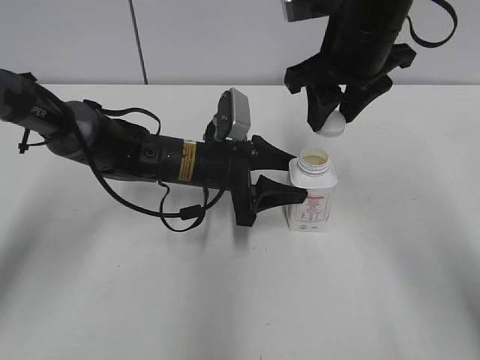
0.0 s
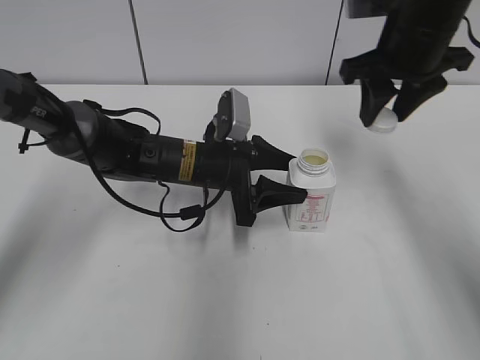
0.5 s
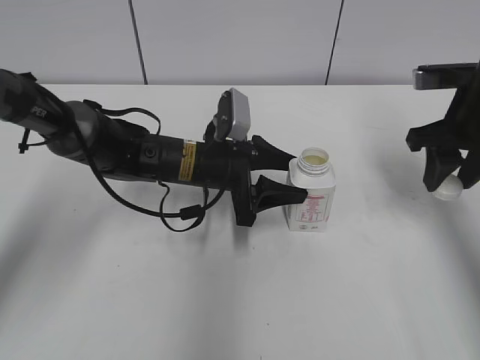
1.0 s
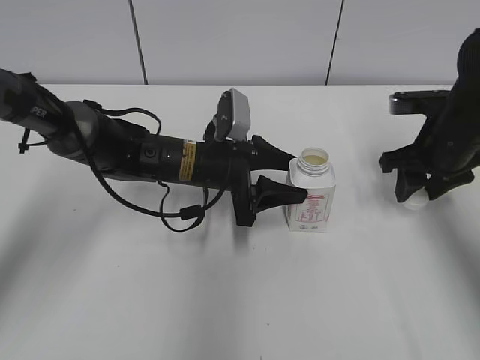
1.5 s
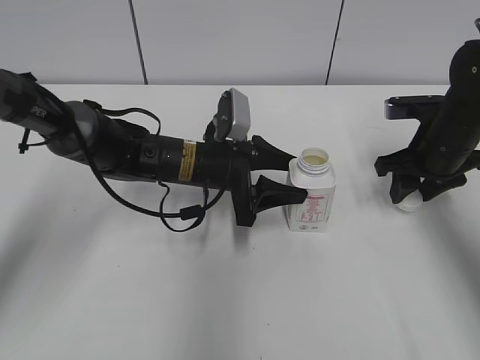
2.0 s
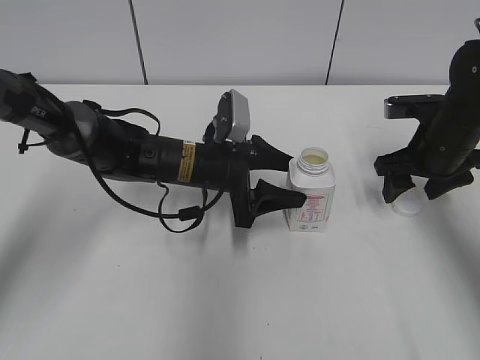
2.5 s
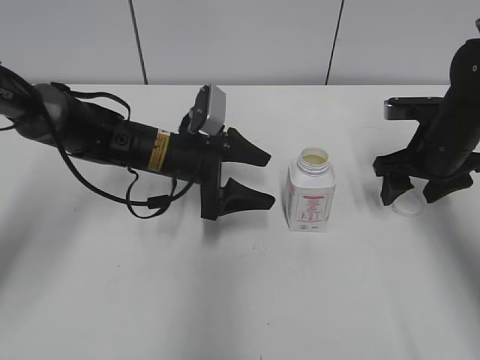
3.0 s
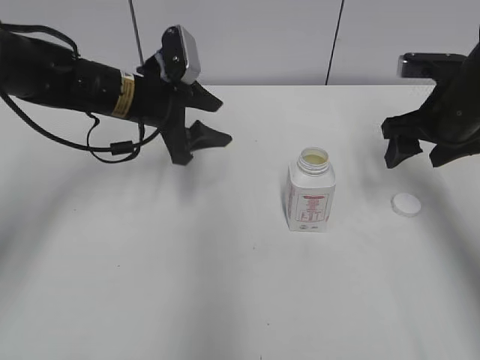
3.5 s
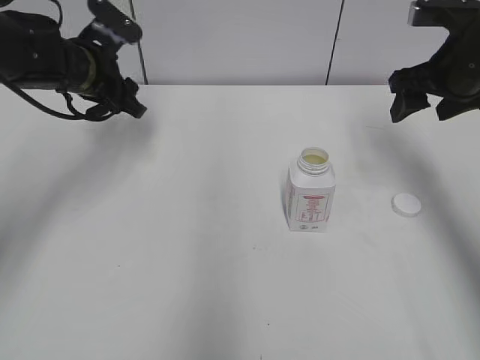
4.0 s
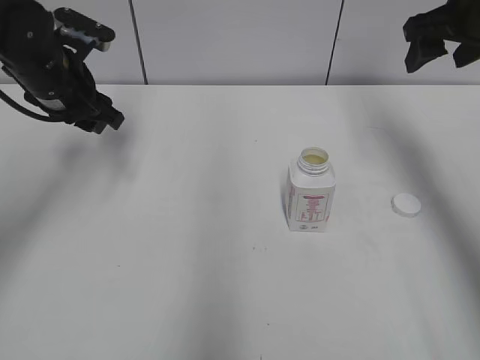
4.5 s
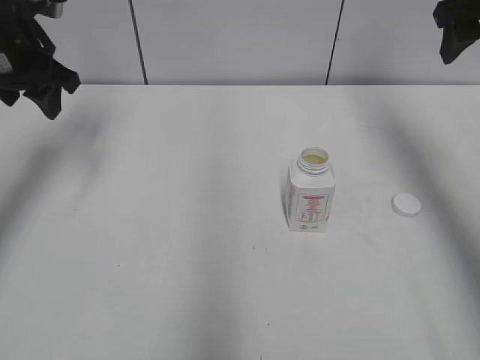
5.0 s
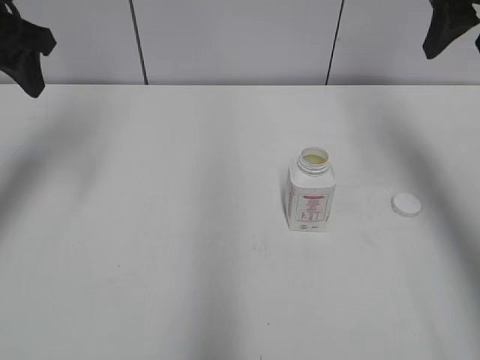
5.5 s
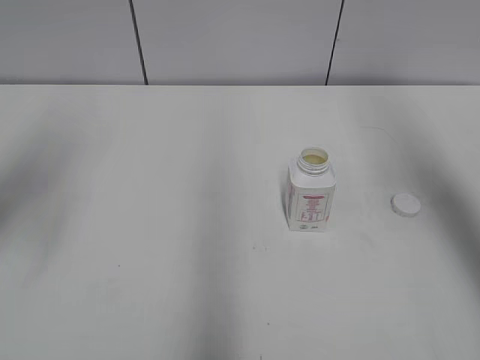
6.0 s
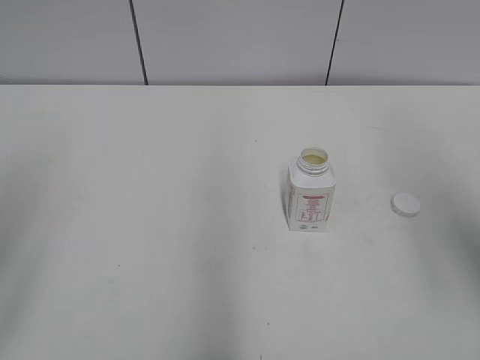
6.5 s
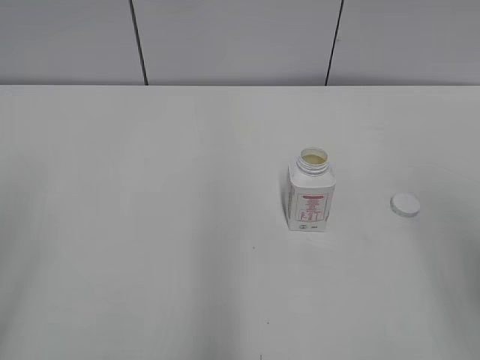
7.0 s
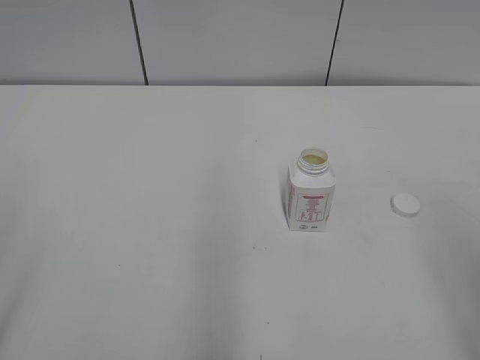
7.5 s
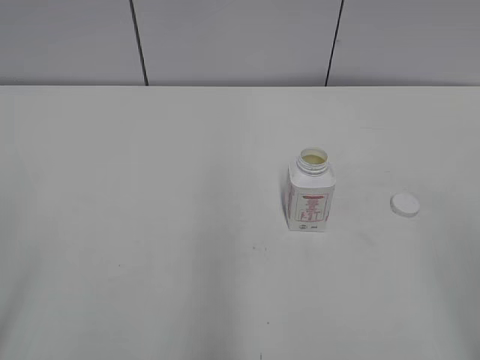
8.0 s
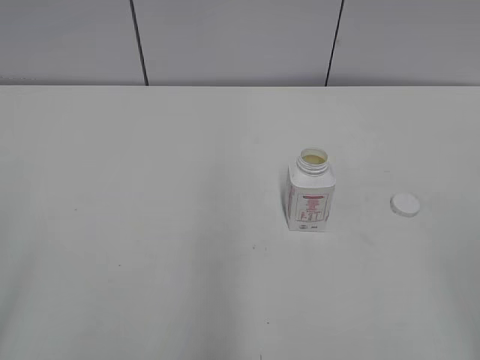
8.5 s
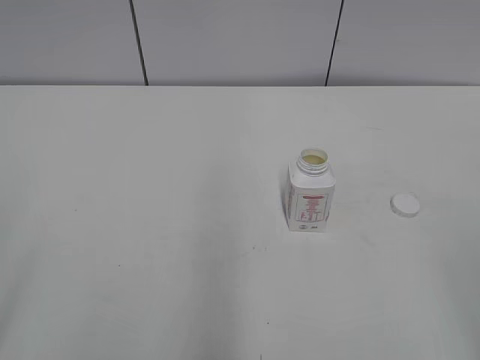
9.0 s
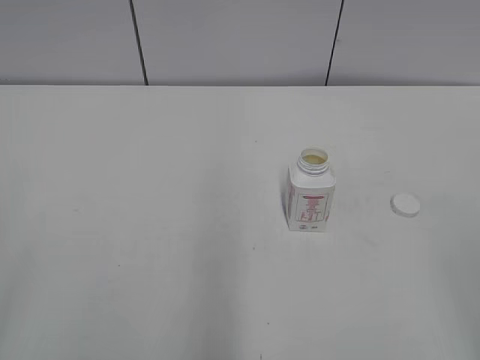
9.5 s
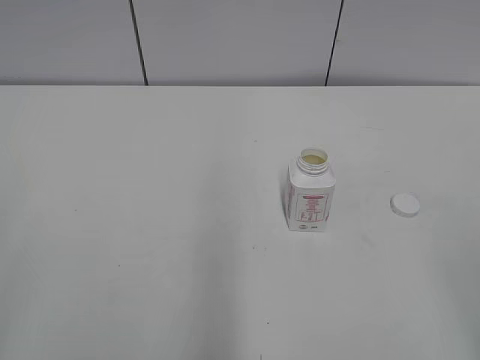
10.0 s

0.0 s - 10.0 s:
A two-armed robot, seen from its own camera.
Step, 0.0 s - 2.0 s: Place the bottle cap on the right.
0.0 s - 2.0 s: The right gripper is displaced to the right and downward by roughly 20 cm.
2.0 s - 4.0 s: The right gripper heads upward, covering roughly 10 cm, and opens its fingers, while the left gripper shifts approximately 20 cm to the left, upward and forward, and opens and closes again.
4.0 s - 6.0 s: The left gripper travels backward, upward and to the left by about 25 cm. The right gripper travels upward and backward by some 15 cm.
6.0 s - 8.0 s: The grippers both shift backward by about 25 cm.

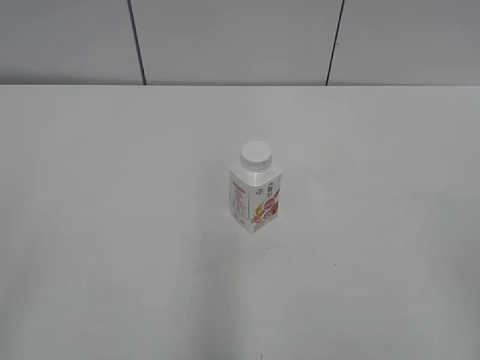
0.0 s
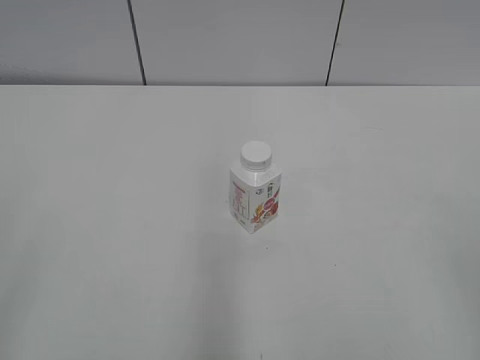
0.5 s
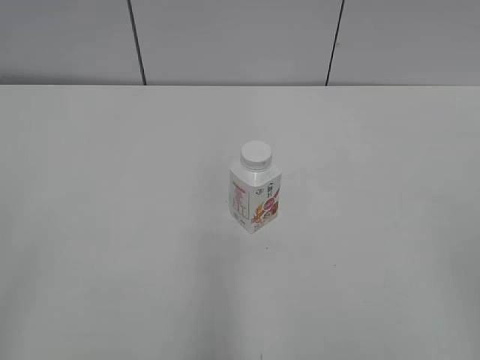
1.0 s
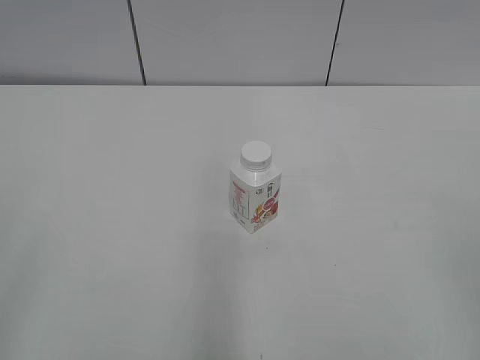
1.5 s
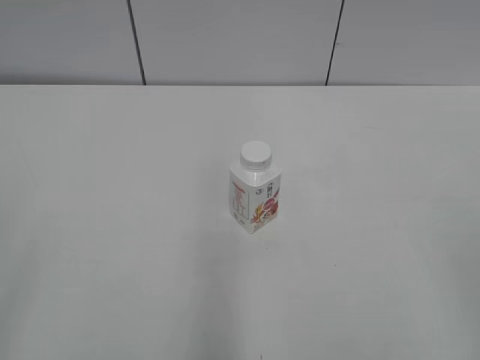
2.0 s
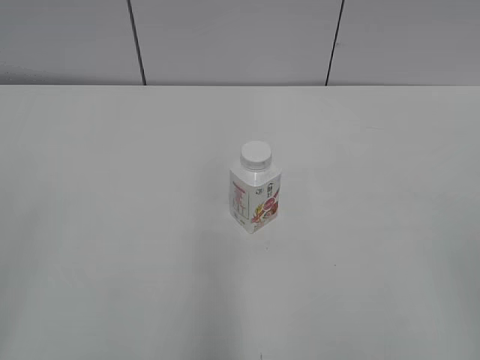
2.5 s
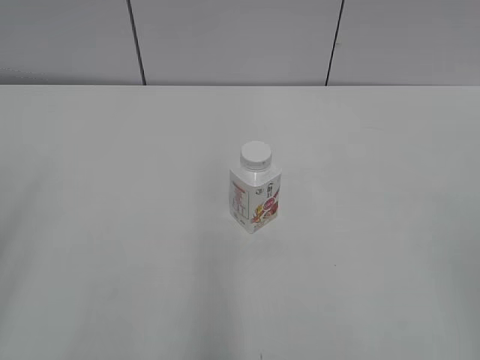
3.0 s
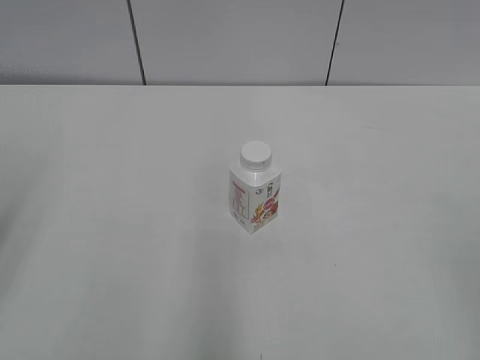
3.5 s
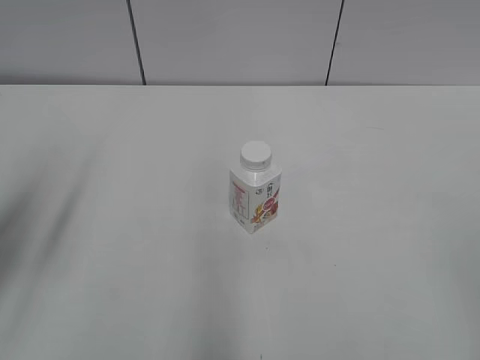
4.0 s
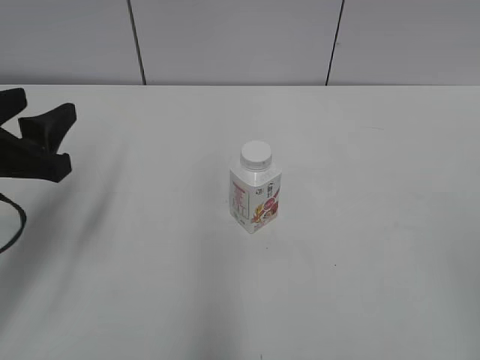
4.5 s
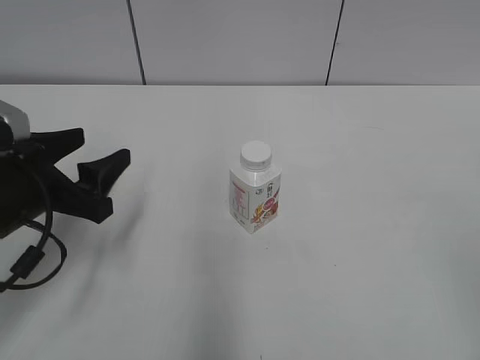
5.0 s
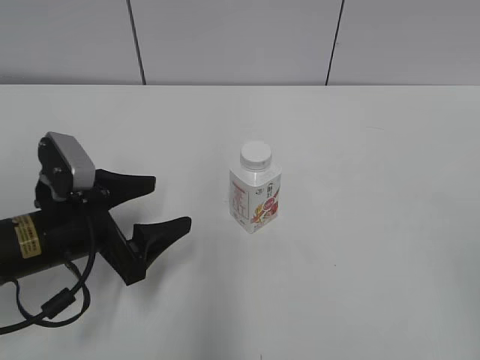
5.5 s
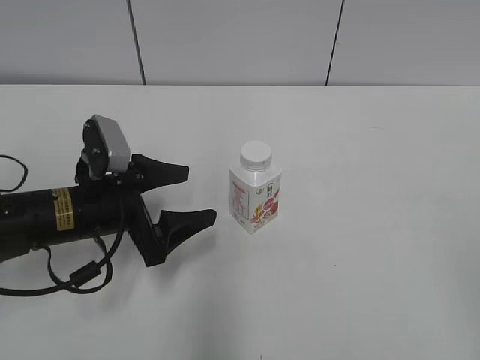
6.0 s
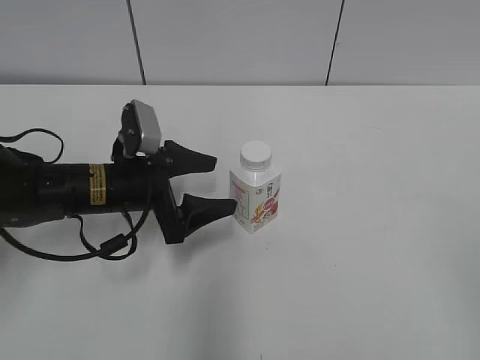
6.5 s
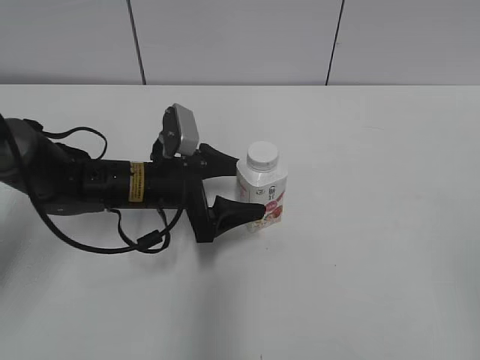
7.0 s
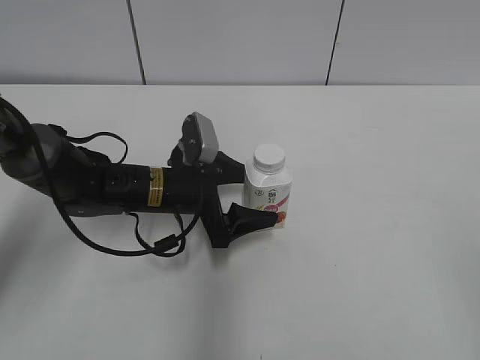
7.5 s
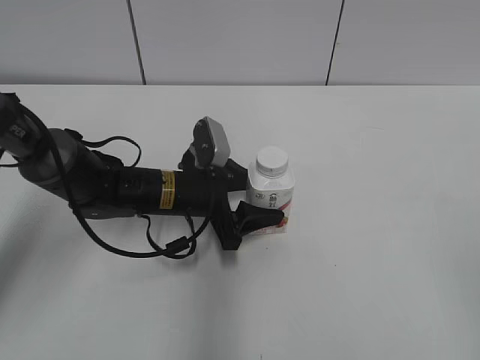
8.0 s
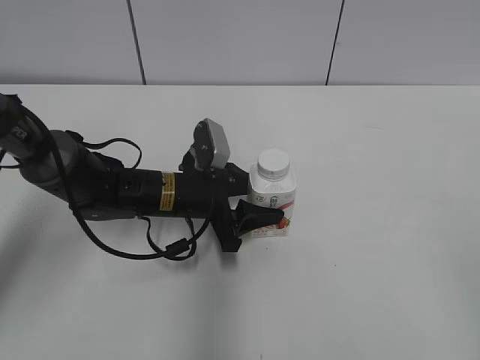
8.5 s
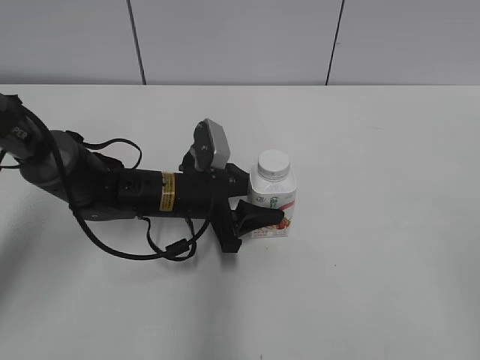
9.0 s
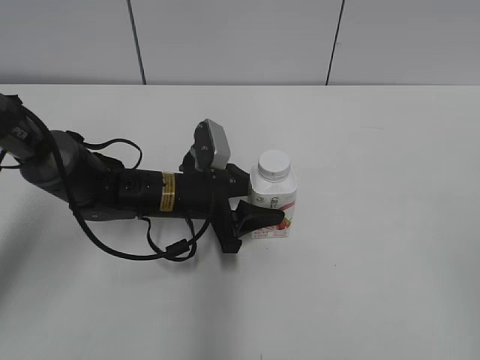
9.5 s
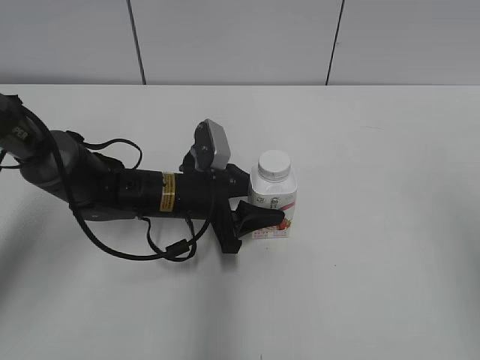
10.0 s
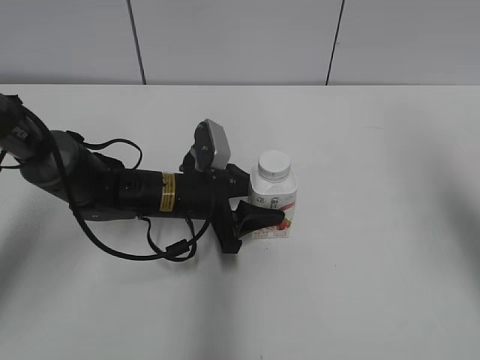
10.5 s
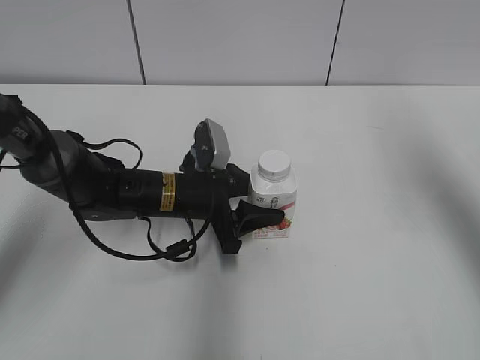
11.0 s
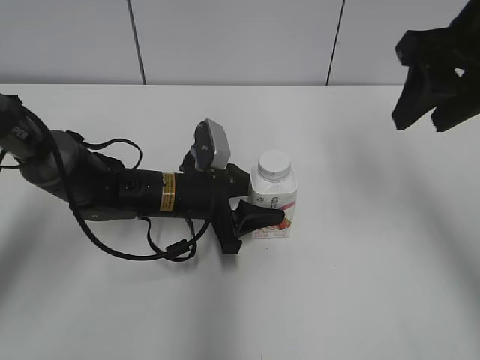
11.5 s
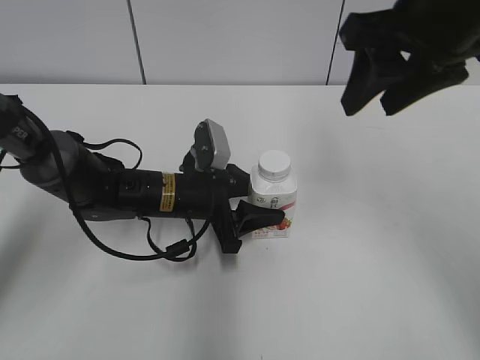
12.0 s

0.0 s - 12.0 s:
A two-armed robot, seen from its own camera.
Step, 0.0 s - 8.5 s: Grab the Yili Changqing with the left hand.
2.0 s - 4.0 s: The left gripper travels forward by approximately 20 cm.
4.0 s - 6.0 s: The left gripper is displaced downward, to the right and forward by about 20 cm, and opens its fingers.
6.0 s - 8.0 s: The left gripper goes roughly 10 cm to the right and forward, and closes.
8.0 s - 10.0 s: The right gripper heads forward, covering some 10 cm, while the left gripper closes its fingers.
10.0 s - 12.0 s: The right gripper moves forward and to the left, some 25 cm, and closes.

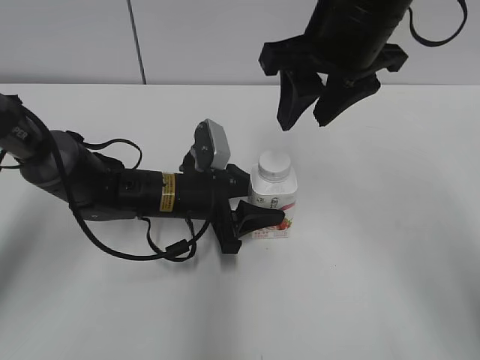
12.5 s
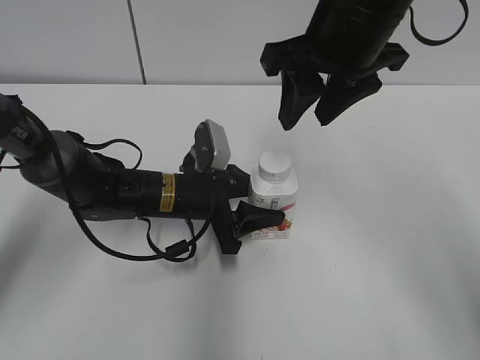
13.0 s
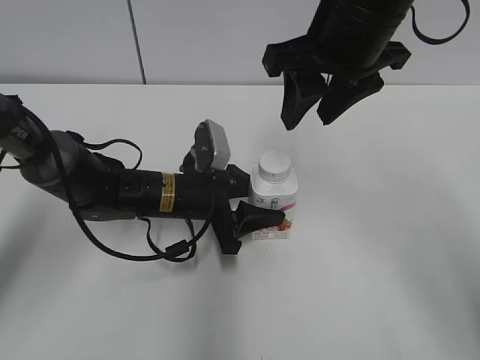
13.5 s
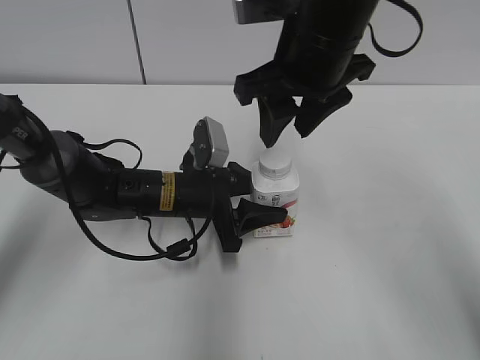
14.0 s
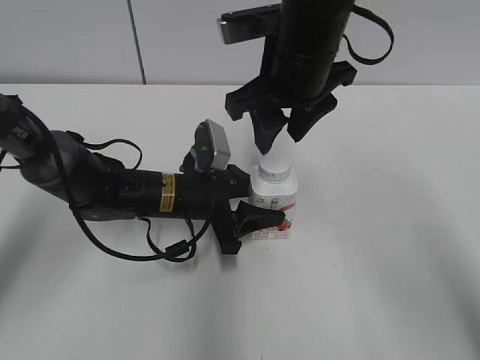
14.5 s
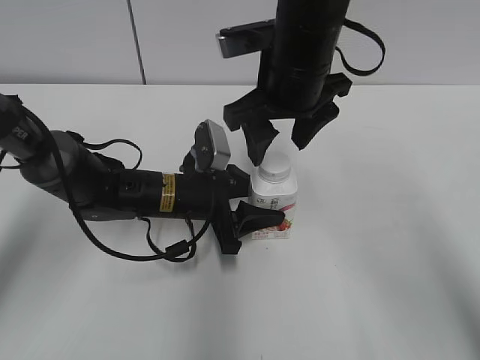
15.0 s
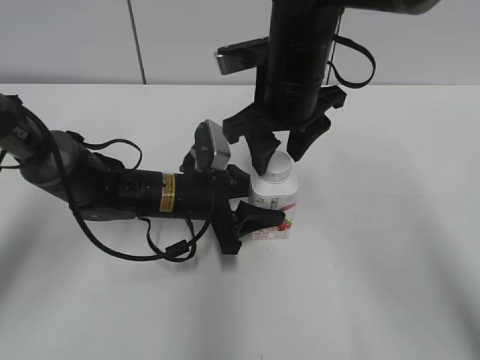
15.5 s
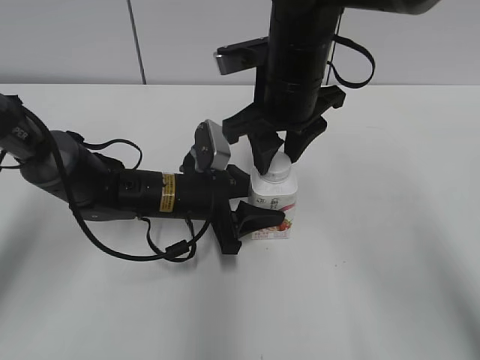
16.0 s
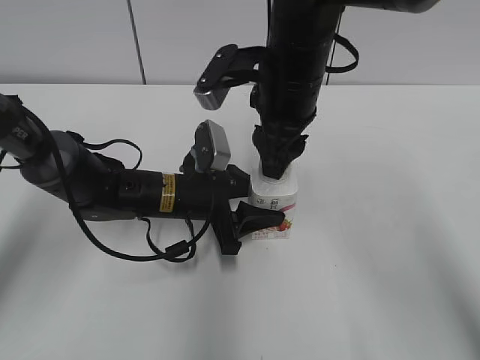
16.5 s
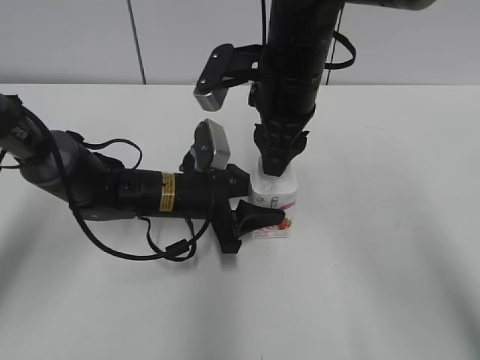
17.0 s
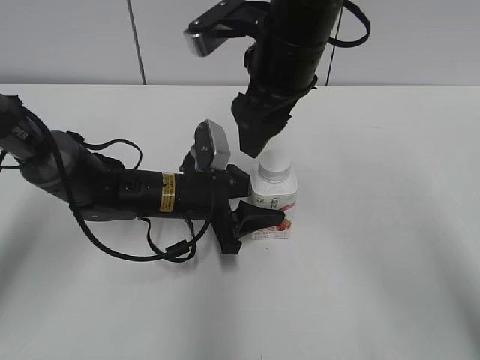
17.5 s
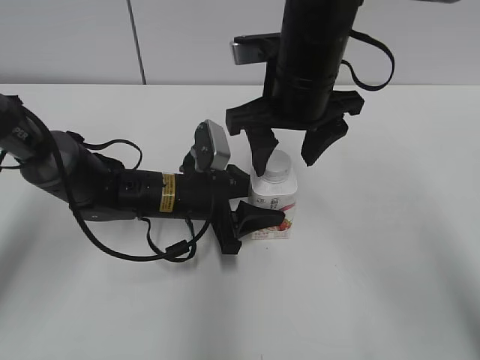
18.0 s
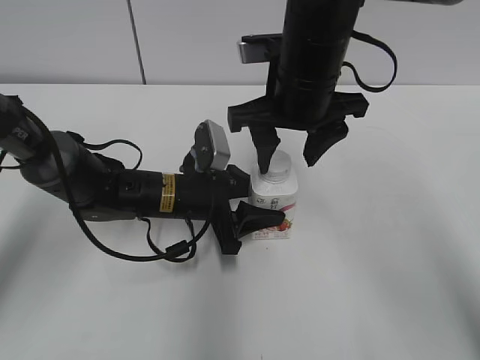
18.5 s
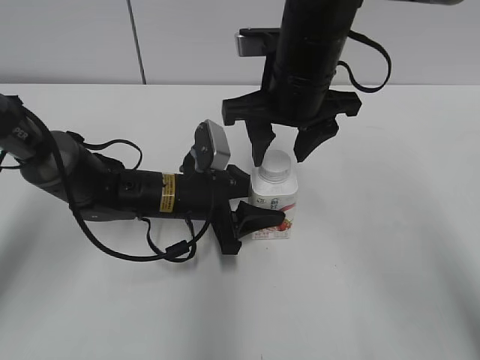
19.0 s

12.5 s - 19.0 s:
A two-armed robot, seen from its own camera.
12.5 s - 14.5 s: The right gripper moves approximately 5 cm.
14.5 s - 17.0 s: The right gripper opens, then closes again.
17.0 s - 19.0 s: The right gripper opens up.
